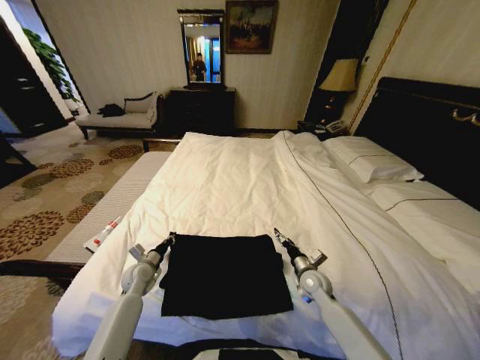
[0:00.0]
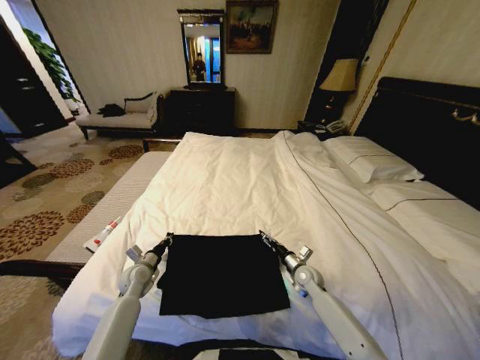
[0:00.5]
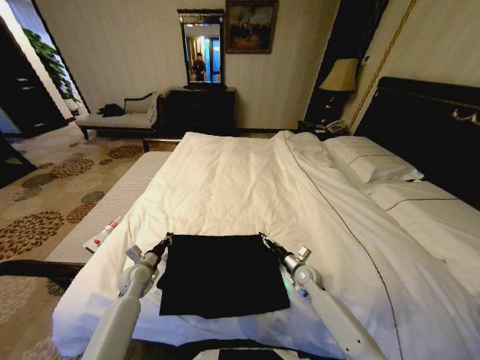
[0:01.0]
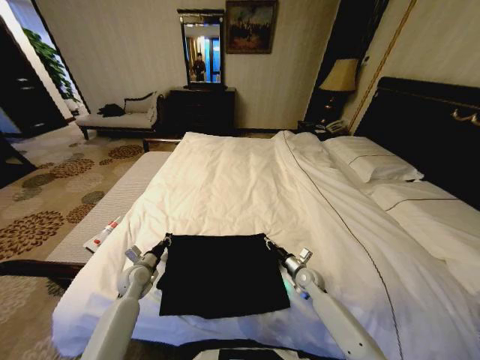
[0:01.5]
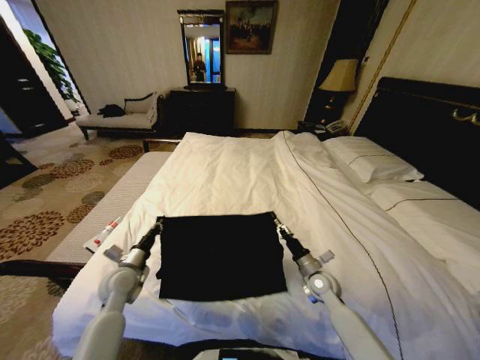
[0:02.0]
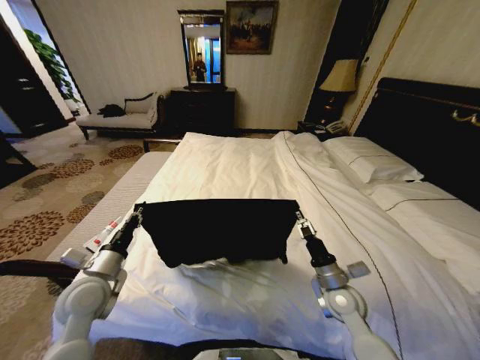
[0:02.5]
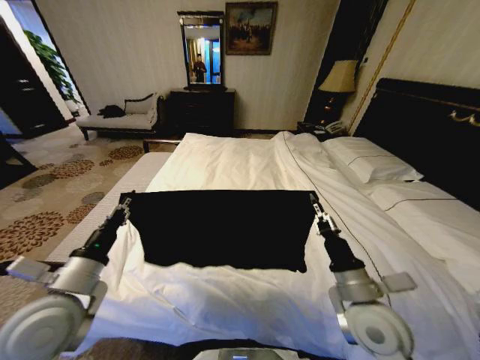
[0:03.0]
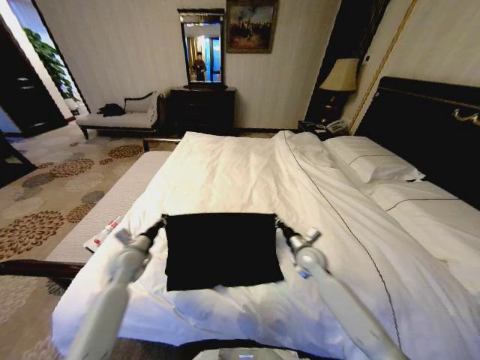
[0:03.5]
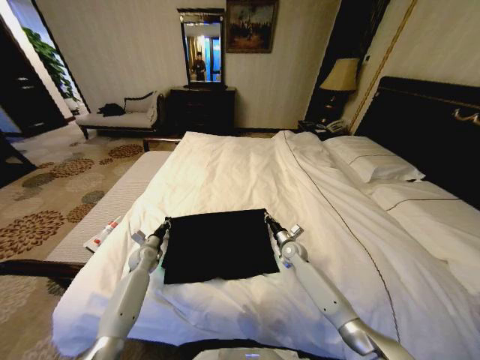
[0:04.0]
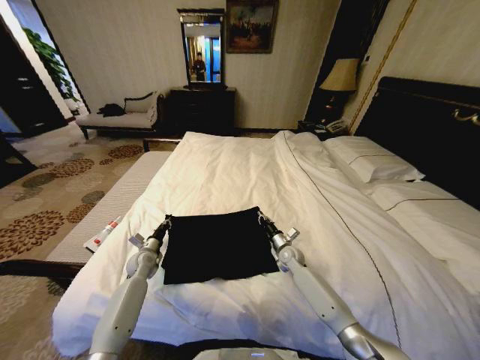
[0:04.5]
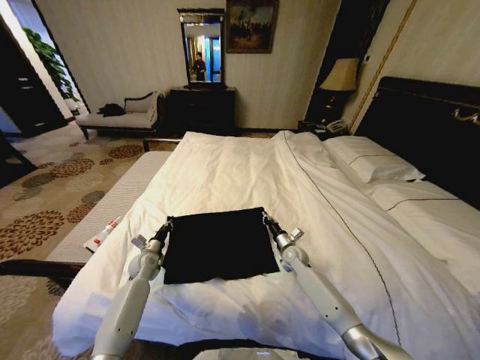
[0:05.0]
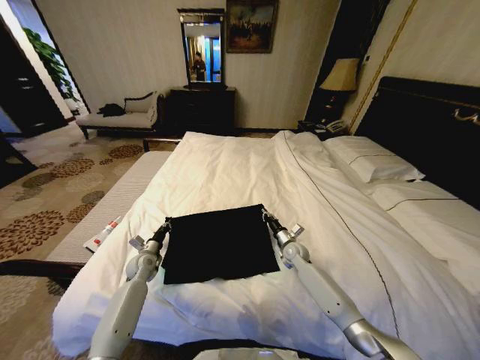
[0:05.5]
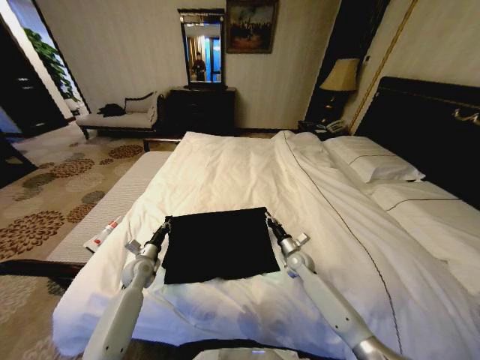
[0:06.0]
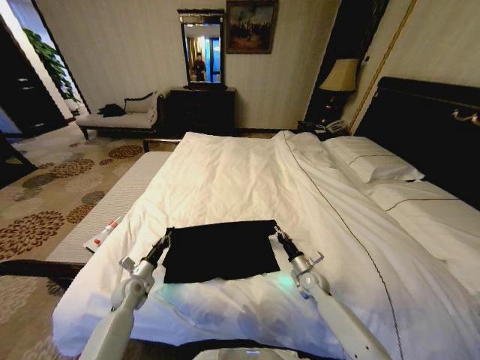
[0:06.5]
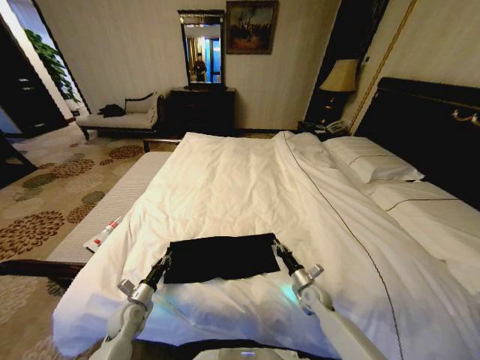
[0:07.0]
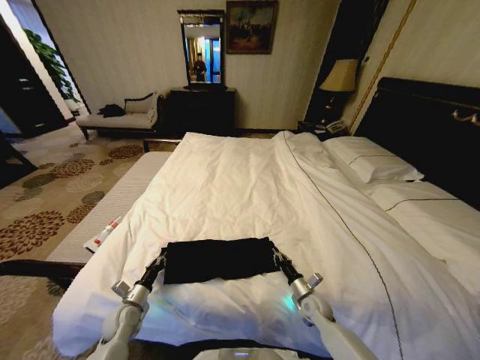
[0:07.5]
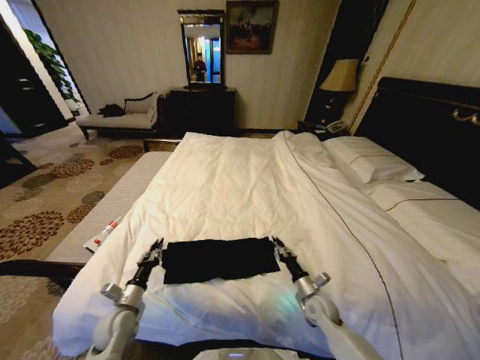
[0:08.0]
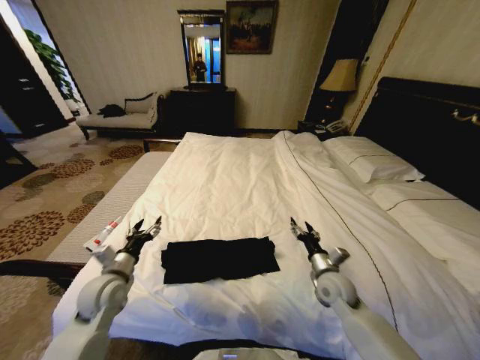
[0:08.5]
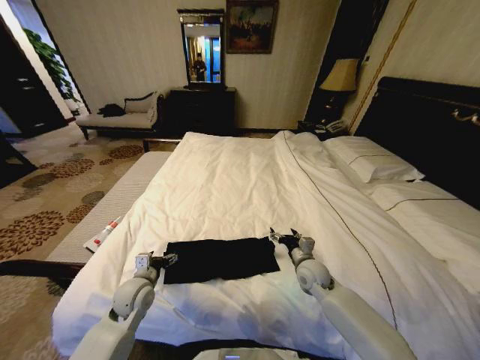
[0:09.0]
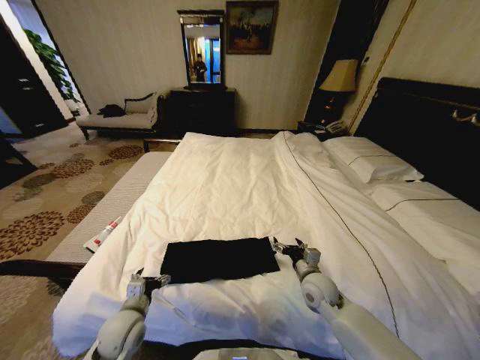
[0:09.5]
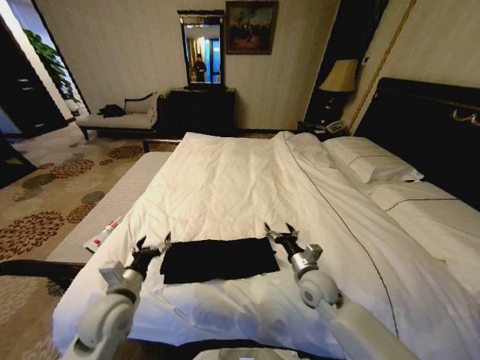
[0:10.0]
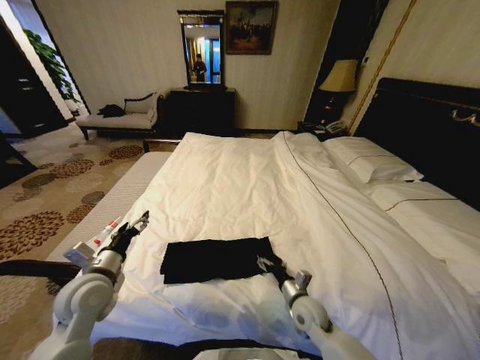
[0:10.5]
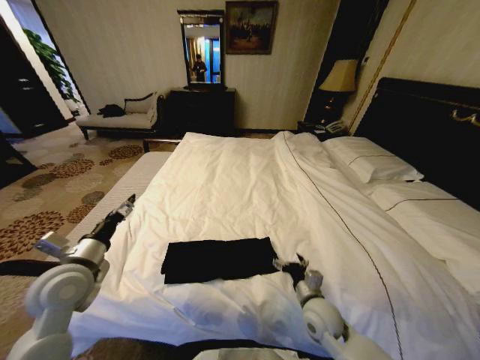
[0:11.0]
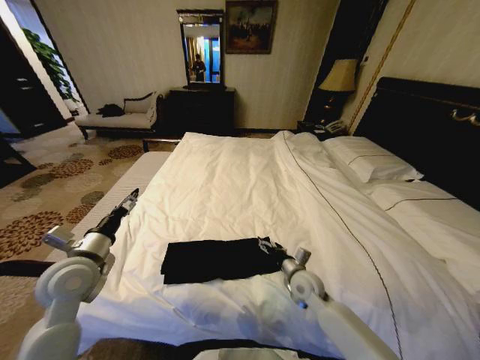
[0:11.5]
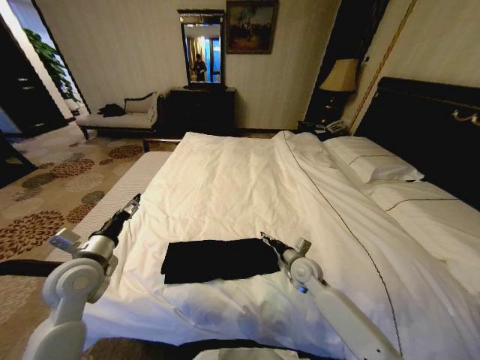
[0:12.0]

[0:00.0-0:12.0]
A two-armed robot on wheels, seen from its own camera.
Task of the whole recording: Fold the clothes on the bed.
0:00.0 to 0:02.0: The right gripper closes up. Meanwhile the left gripper is displaced upward and backward by some 10 cm.
0:02.0 to 0:04.0: The left gripper moves forward and downward, some 20 cm. The right gripper shifts approximately 15 cm forward.
0:04.0 to 0:06.0: The left gripper goes roughly 5 cm backward.
0:06.0 to 0:08.0: The two grippers go about 15 cm backward.
0:08.0 to 0:10.0: The left gripper moves up and down over some 15 cm, changing direction 2 times, and opens. Meanwhile the right gripper heads upward and to the left, covering approximately 15 cm, and opens up.
0:10.0 to 0:12.0: The right gripper is displaced forward by roughly 5 cm, while the left gripper shifts some 10 cm upward, to the left and forward.

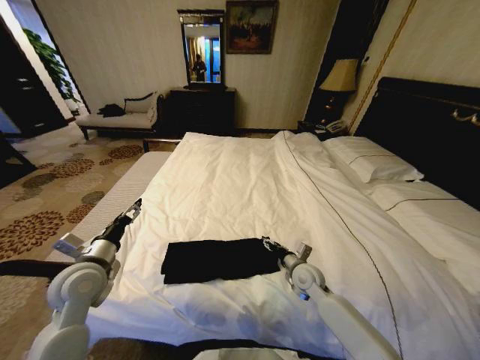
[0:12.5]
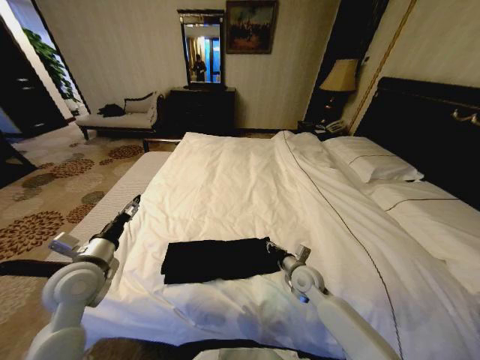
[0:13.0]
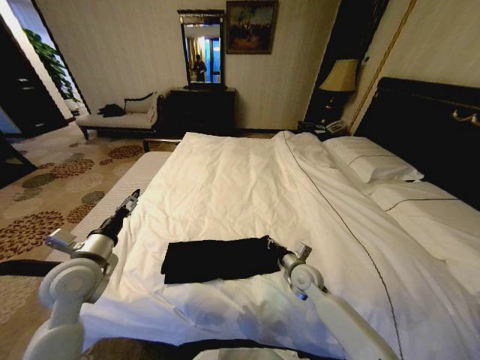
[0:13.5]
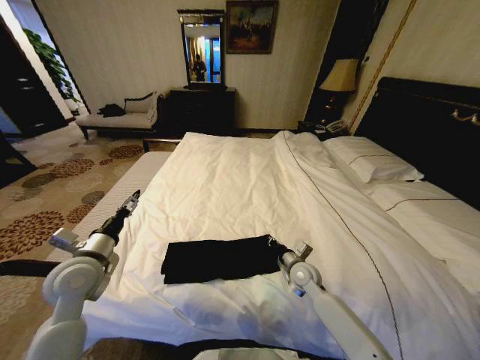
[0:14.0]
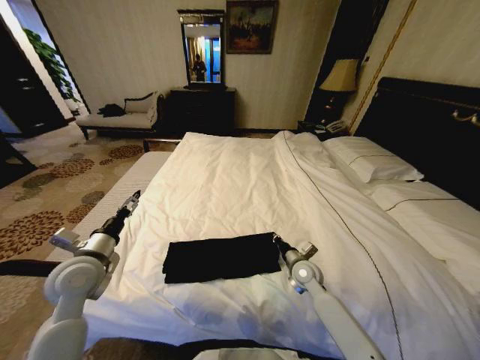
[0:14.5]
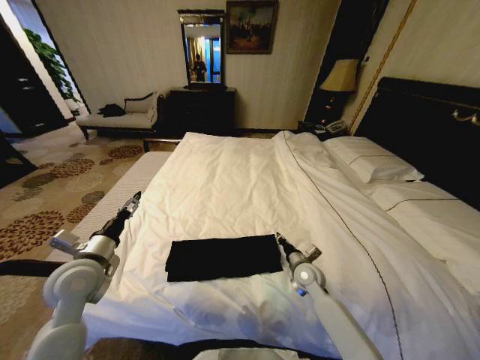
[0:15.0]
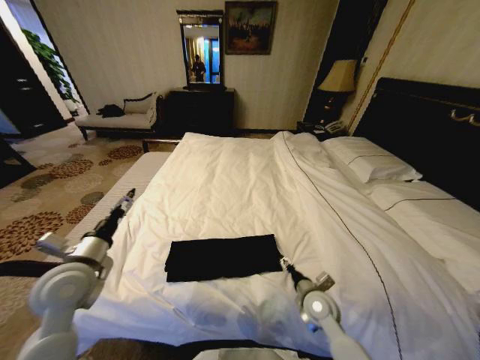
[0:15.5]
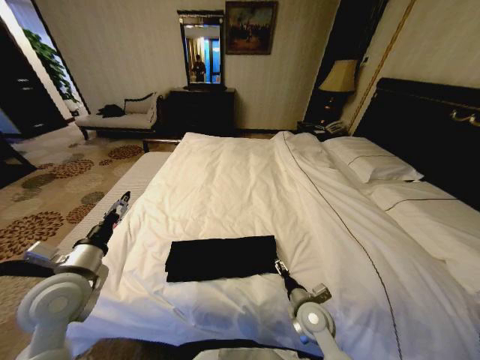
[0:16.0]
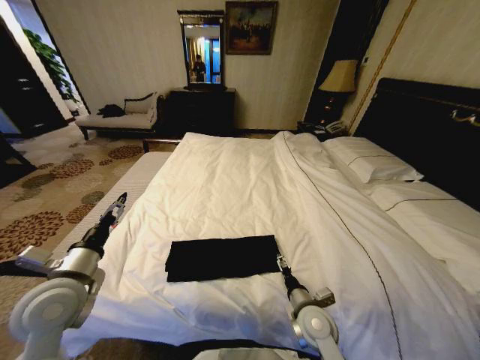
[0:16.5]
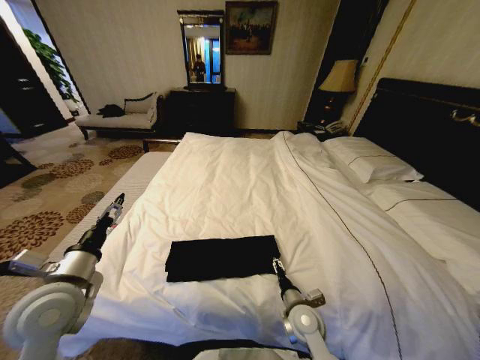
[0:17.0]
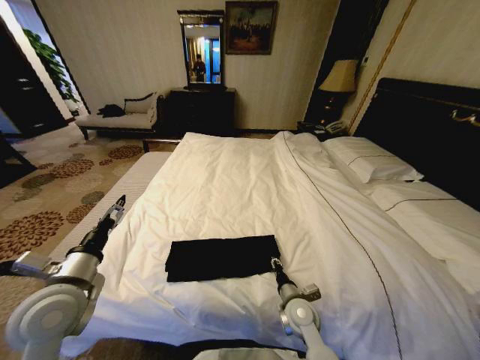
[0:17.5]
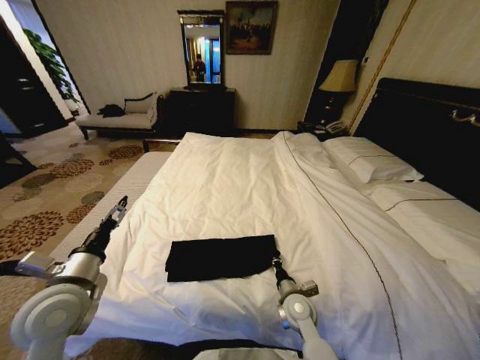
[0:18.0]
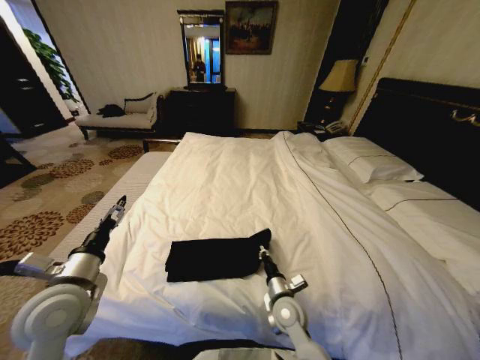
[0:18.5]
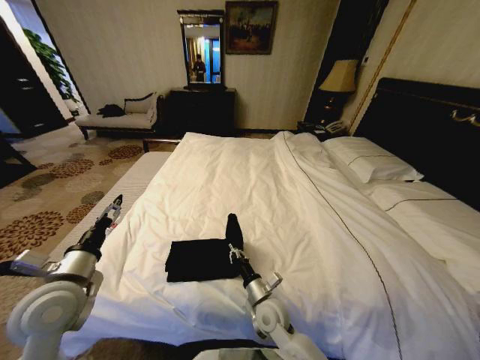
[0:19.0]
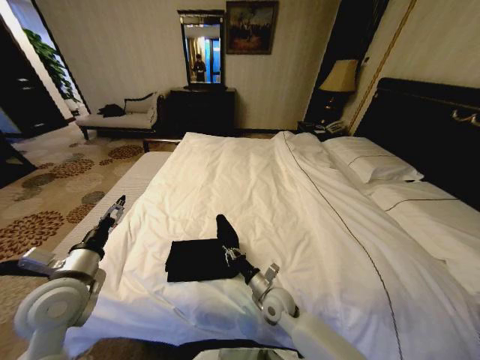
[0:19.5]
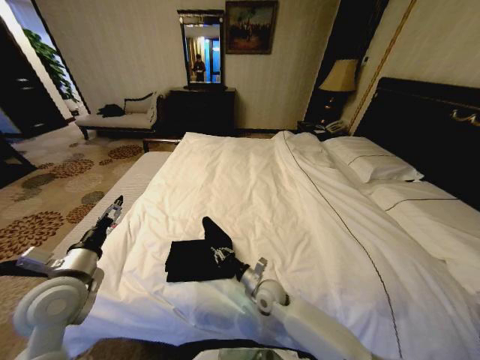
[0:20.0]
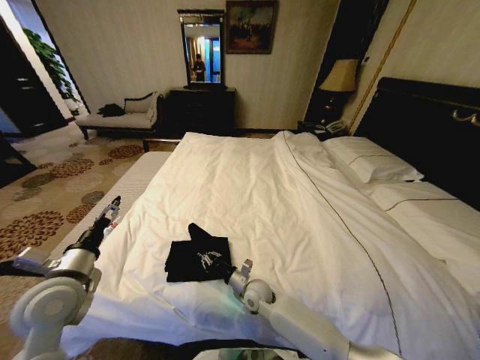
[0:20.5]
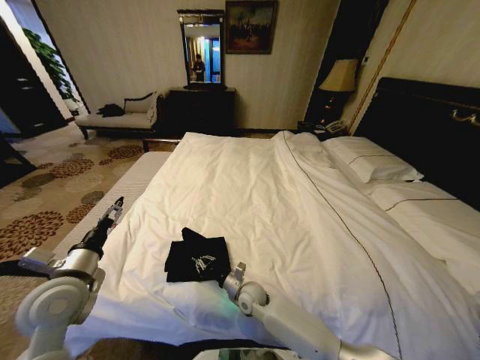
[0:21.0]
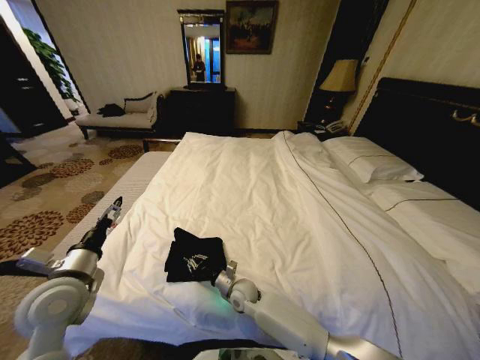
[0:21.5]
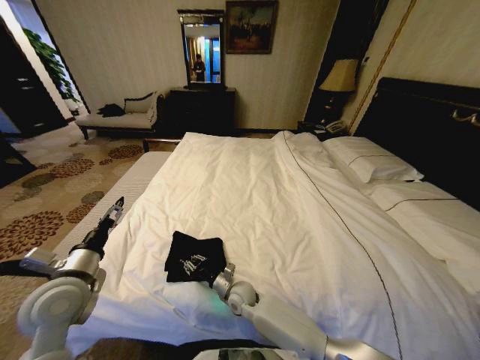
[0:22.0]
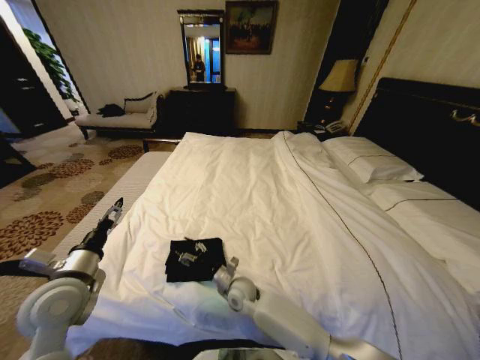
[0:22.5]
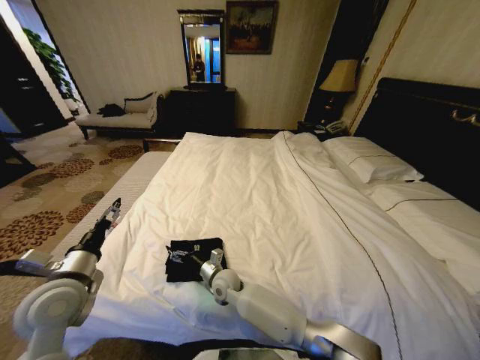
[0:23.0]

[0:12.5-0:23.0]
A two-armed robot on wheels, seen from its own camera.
Task of the whole recording: Fold the clothes on the bed.
0:12.5 to 0:14.5: The right gripper closes its fingers.
0:14.5 to 0:16.5: The right gripper shifts about 15 cm backward, and opens its fingers; the left gripper goes roughly 5 cm backward.
0:16.5 to 0:19.0: The right gripper is displaced to the left by about 10 cm, and closes.
0:19.0 to 0:21.0: The right gripper goes approximately 5 cm forward.
0:21.0 to 0:23.0: The right gripper is displaced to the left by about 10 cm, and opens its fingers.

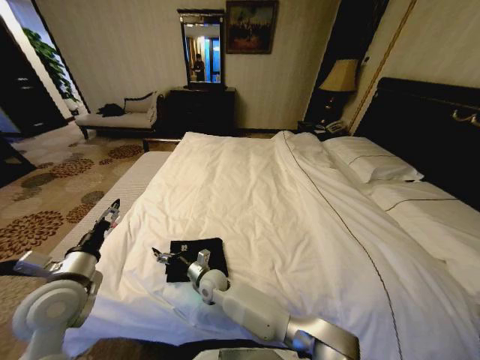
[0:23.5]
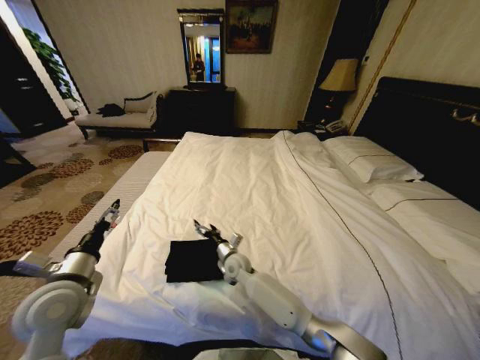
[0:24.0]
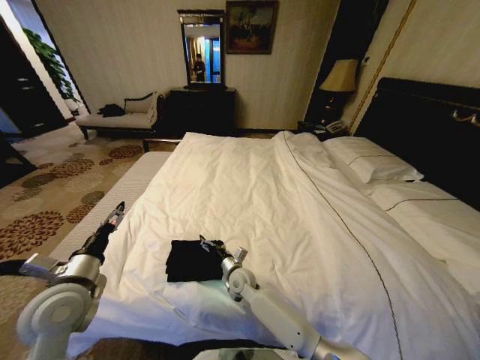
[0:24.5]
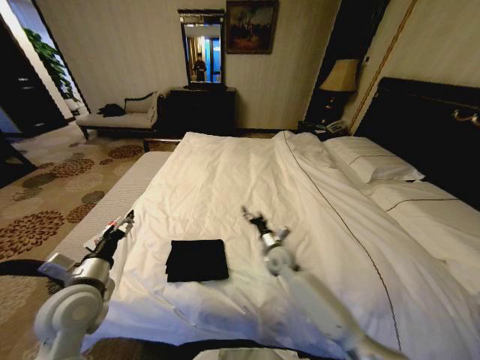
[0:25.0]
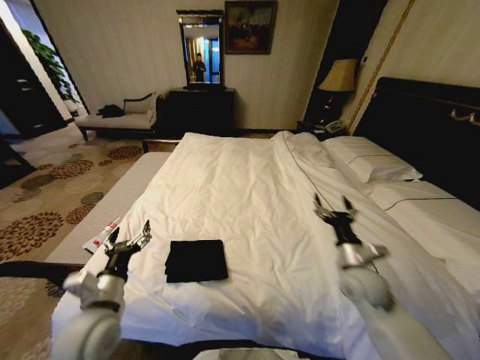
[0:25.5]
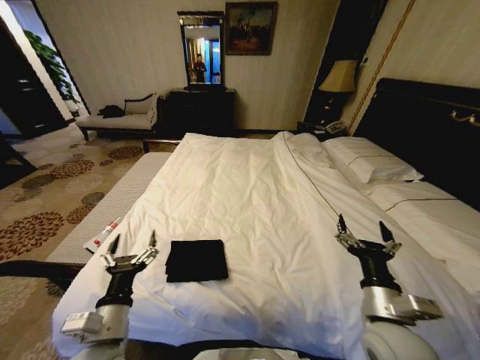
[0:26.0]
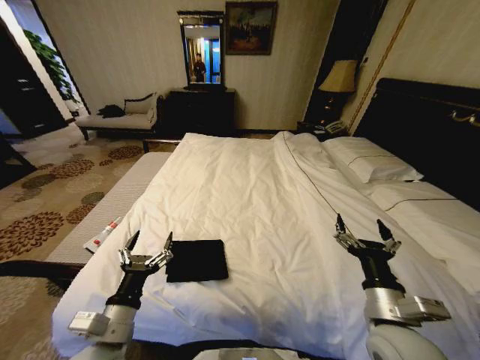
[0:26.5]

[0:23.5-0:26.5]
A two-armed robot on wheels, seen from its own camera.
Task of the whole recording: Fold the clothes on the bed.
0:23.5 to 0:25.0: The right gripper shifts roughly 25 cm to the right.
0:25.0 to 0:26.5: The left gripper moves backward and to the right, approximately 10 cm, while the right gripper heads backward and upward, covering approximately 30 cm.
